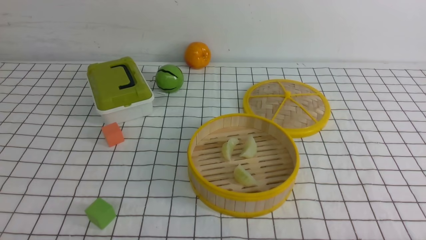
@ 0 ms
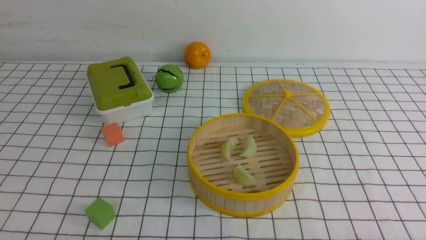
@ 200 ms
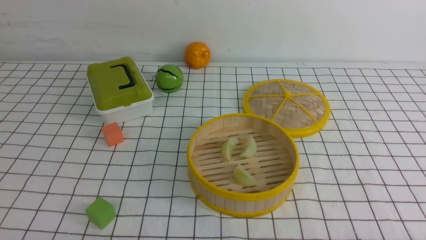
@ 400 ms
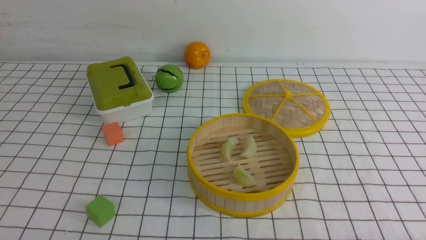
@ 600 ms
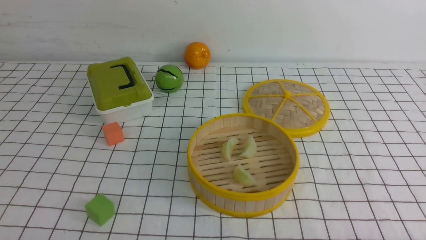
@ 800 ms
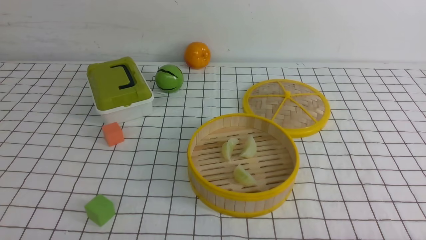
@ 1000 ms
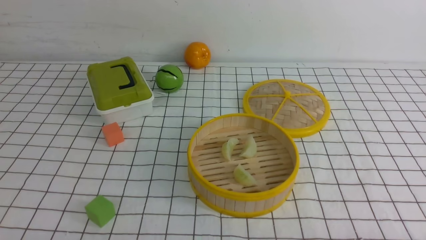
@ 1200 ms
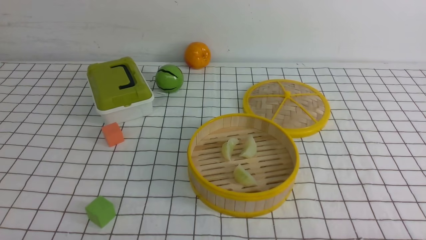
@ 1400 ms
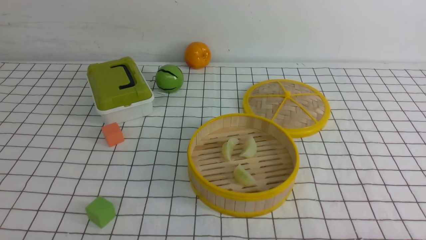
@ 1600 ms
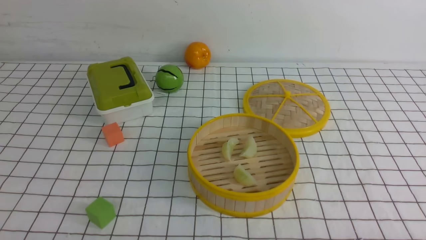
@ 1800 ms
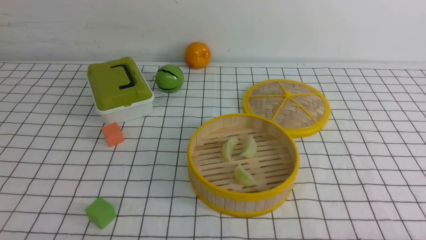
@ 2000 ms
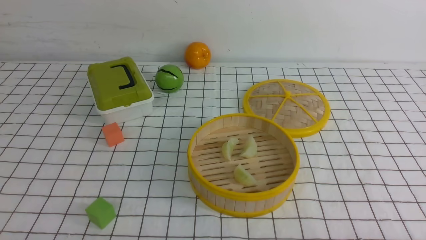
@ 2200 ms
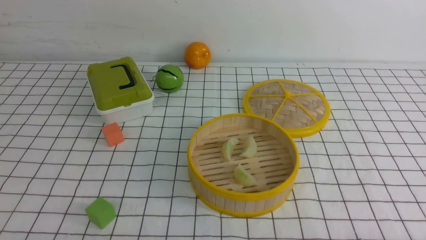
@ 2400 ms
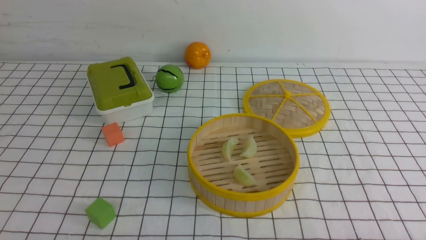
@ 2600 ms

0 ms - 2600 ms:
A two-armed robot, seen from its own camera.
Task of the whole recording: put the dumplings into the steamer on the table with the white tablecloth.
0 ms - 2600 ms: The two grippers keep their place.
